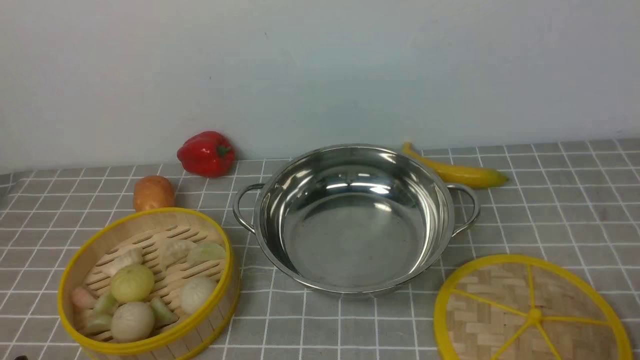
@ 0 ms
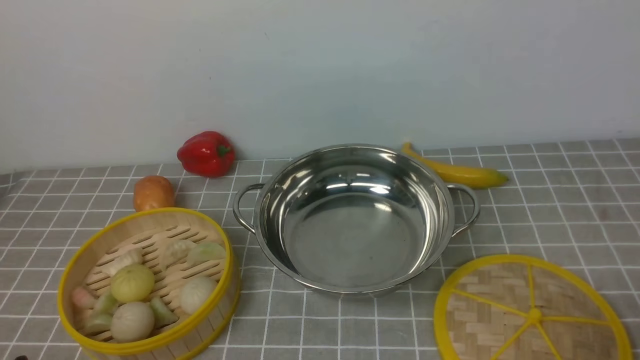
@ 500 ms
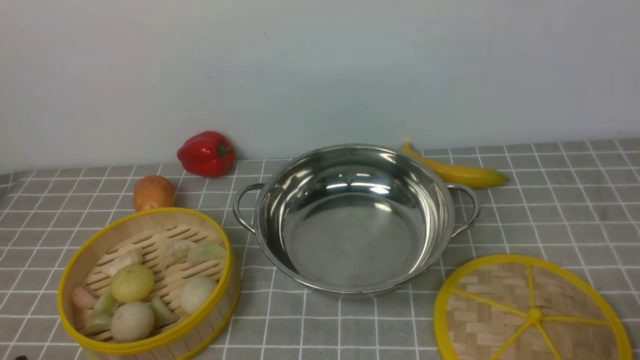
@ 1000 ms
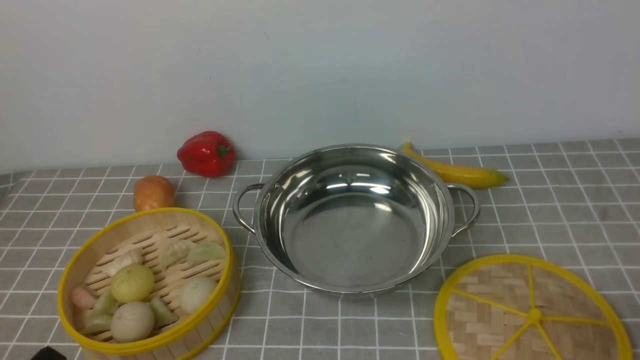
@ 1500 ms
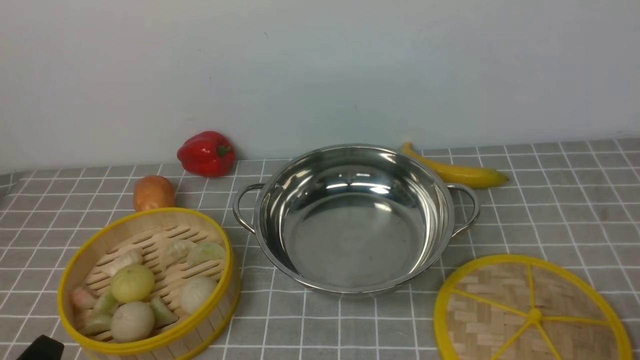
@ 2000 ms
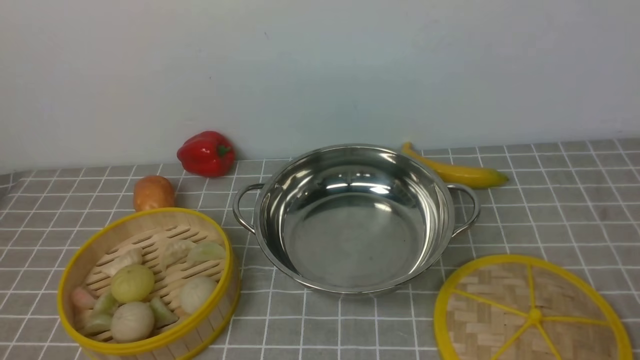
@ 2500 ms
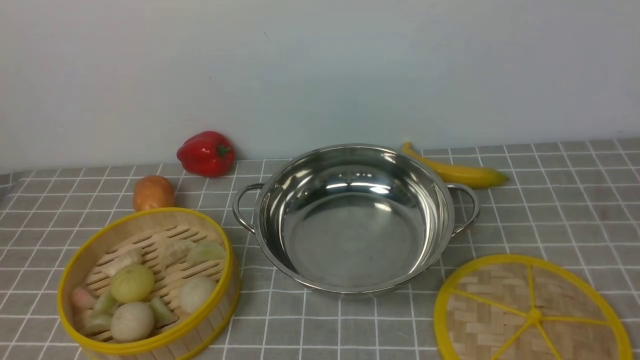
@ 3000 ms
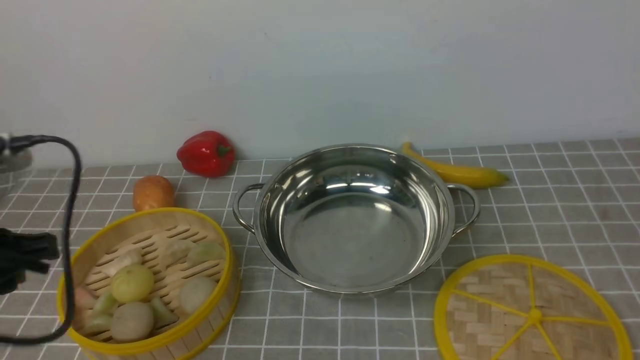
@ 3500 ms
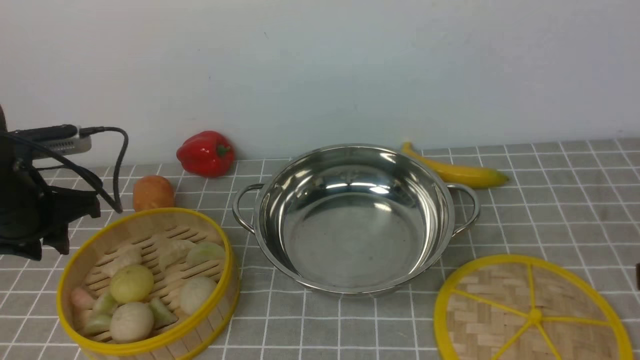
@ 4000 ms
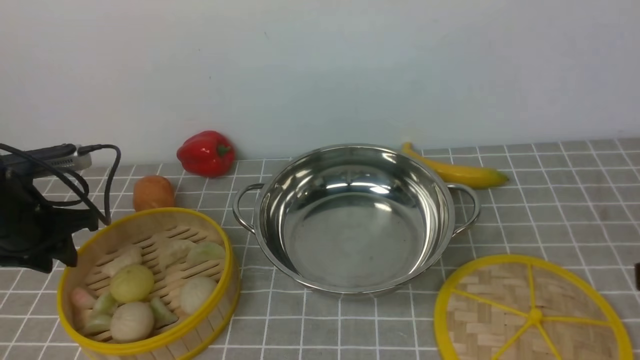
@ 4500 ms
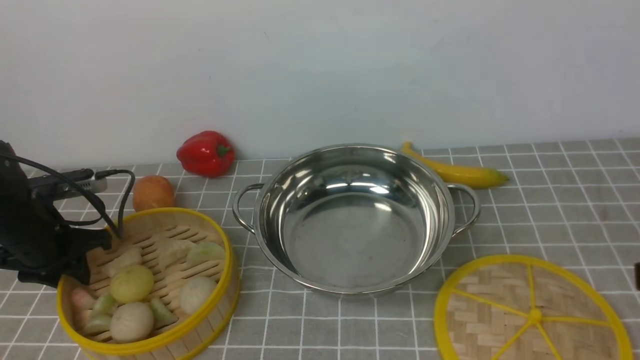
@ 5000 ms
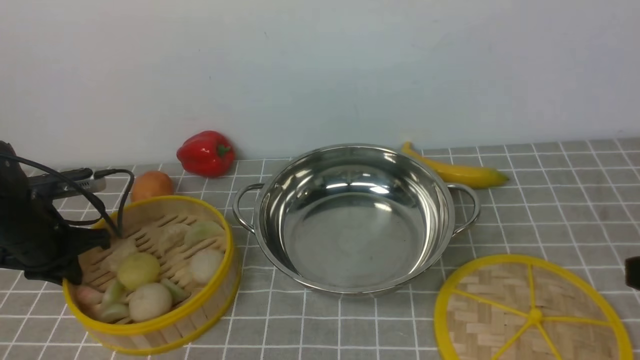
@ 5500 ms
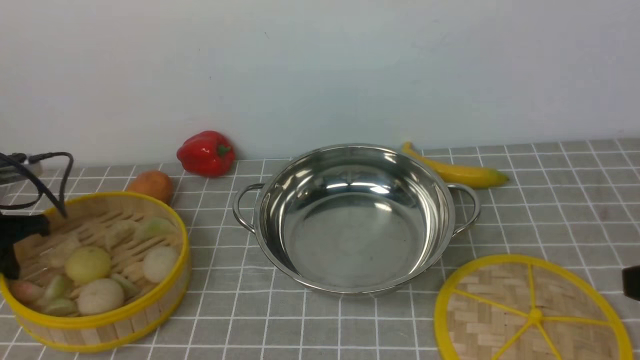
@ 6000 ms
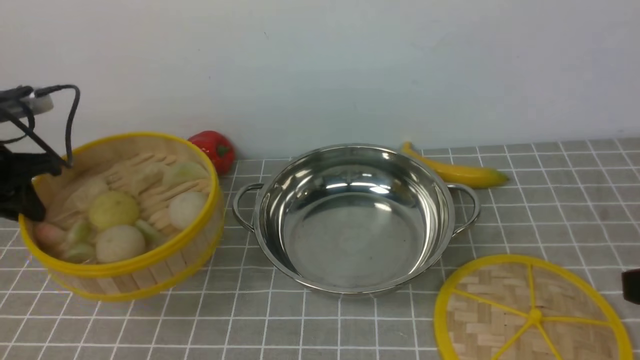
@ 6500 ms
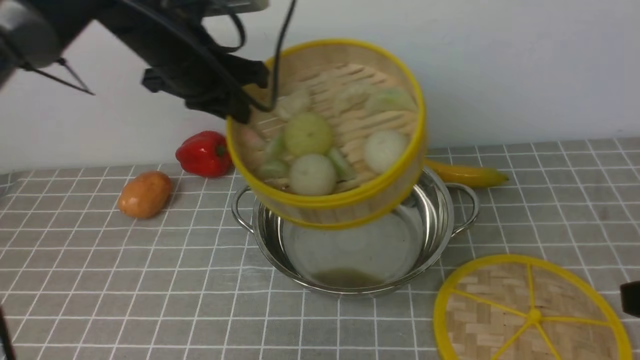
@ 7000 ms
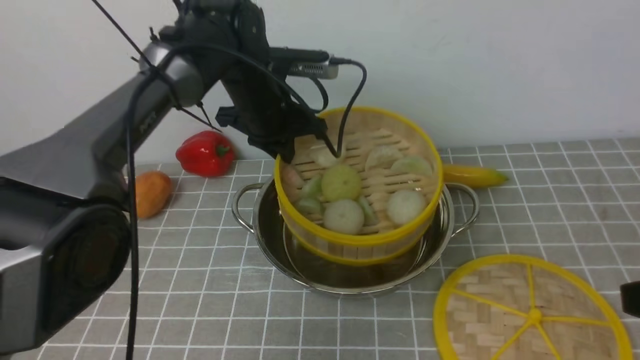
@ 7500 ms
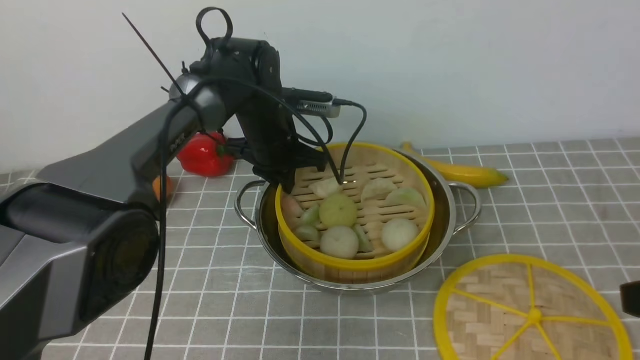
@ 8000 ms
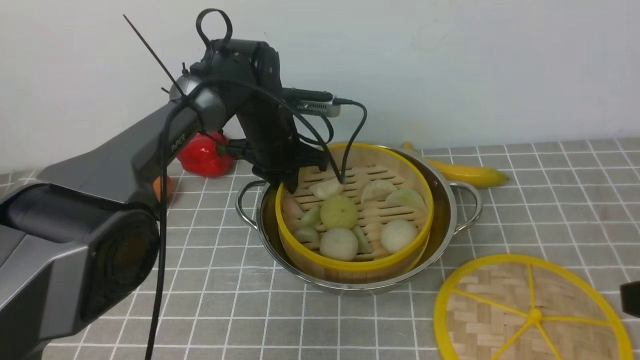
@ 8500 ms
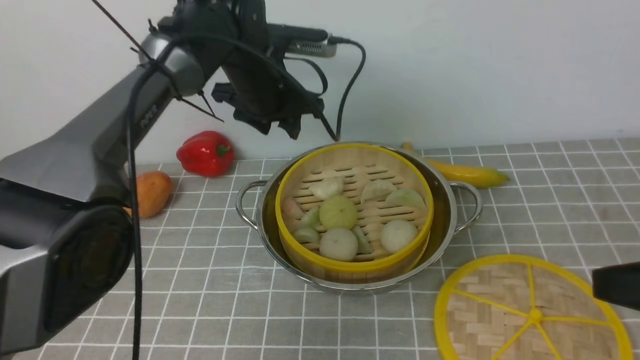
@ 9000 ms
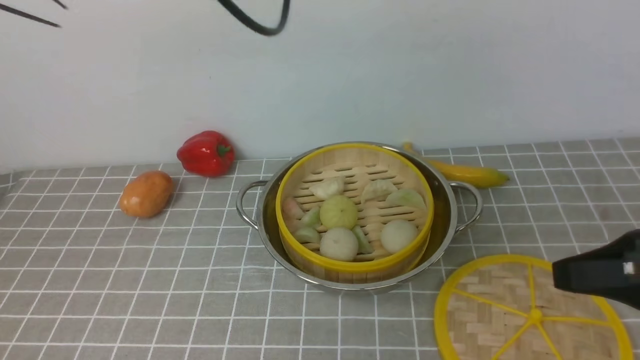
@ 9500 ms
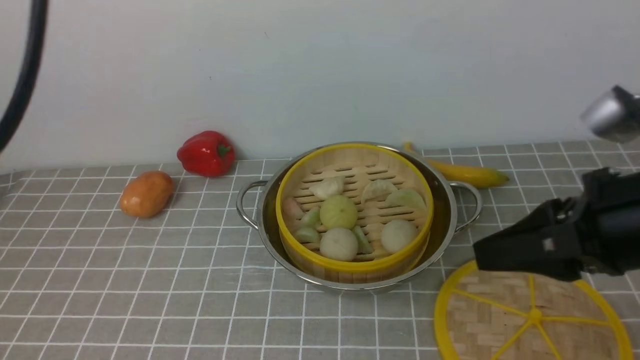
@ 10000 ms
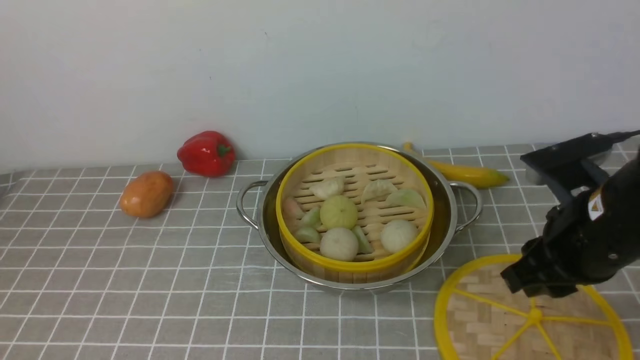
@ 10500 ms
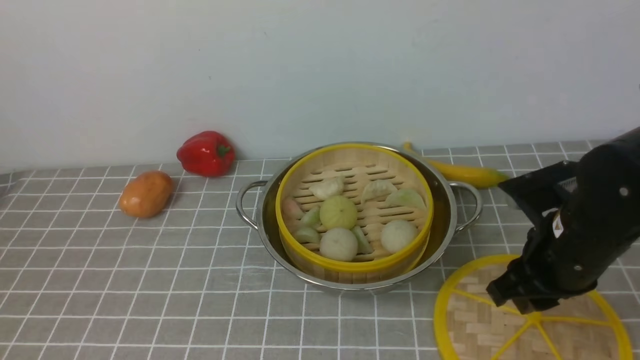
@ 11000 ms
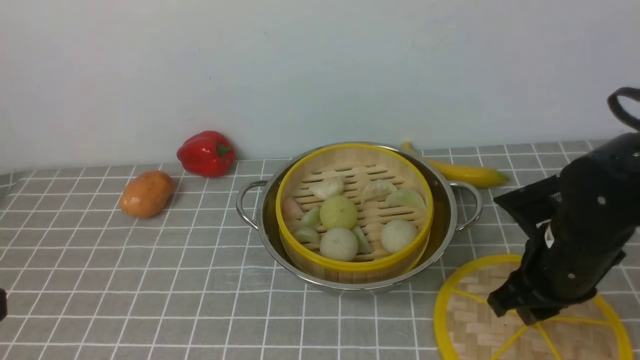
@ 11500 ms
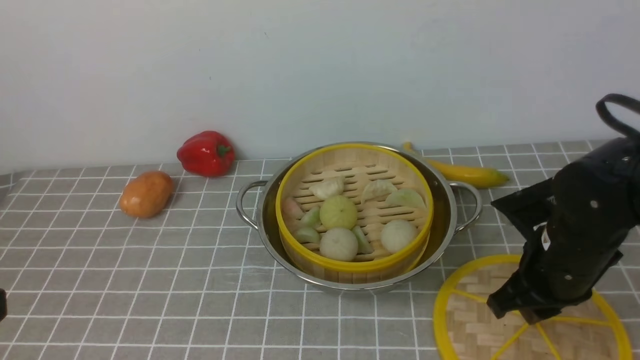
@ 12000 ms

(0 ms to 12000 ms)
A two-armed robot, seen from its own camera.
Task of the whole recording: place the steamer in the pot on the grey tablecloth, and put the lid on the steamer.
Step, 0 ms - 5500 ms: use the left arm to lift the steamer closest to it.
Step, 6000 ms - 8500 ms: use the left arm to put the steamer into the iron steamer pot in the middle.
2000 ms - 4000 ms: The left gripper travels forward by about 25 cm.
4000 ms - 6000 ms: The left gripper is displaced to the left and downward by approximately 10 cm, and closes its fingers.
6000 ms - 8000 ms: The left gripper moves to the right and forward, roughly 35 cm.
8000 ms - 10000 ms: The right gripper goes about 5 cm forward, while the left gripper shifts approximately 40 cm upward and backward, and opens, then closes once more.
10000 ms - 12000 ms: The left gripper goes some 25 cm backward and downward. Meanwhile the right gripper shifts about 15 cm downward and forward.

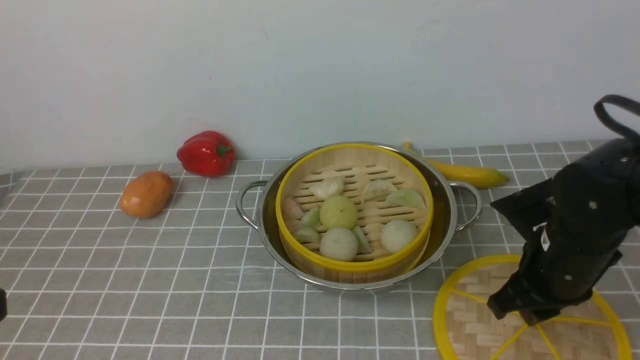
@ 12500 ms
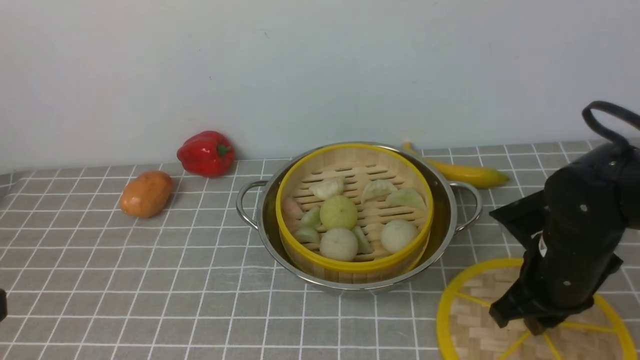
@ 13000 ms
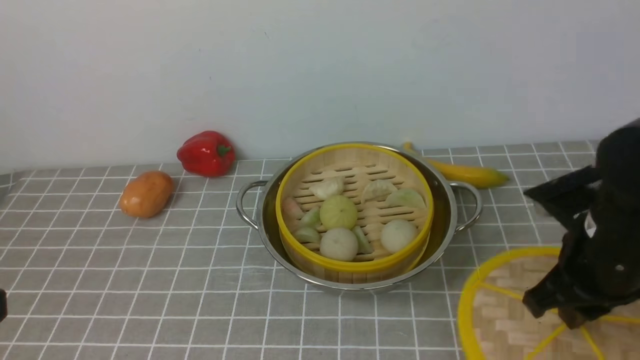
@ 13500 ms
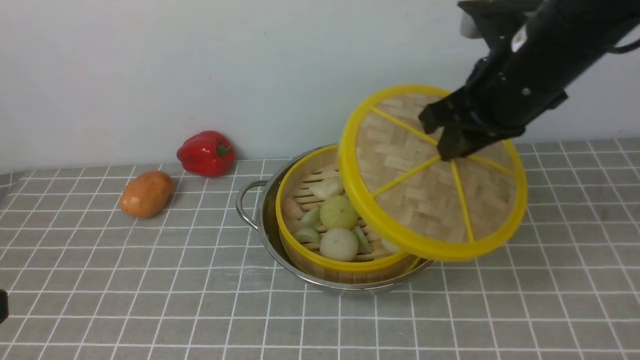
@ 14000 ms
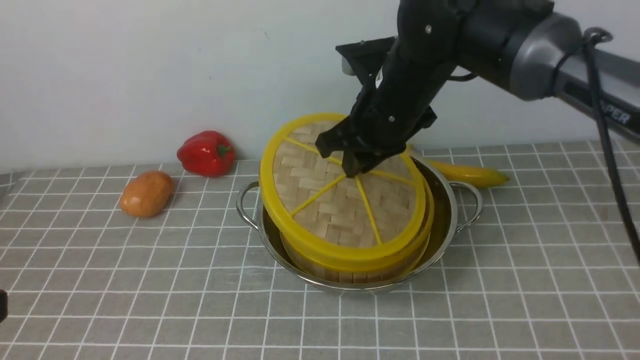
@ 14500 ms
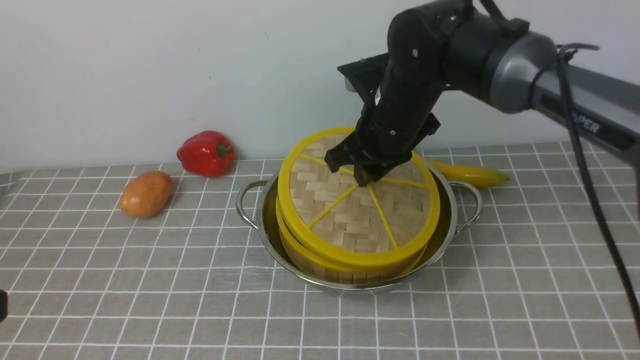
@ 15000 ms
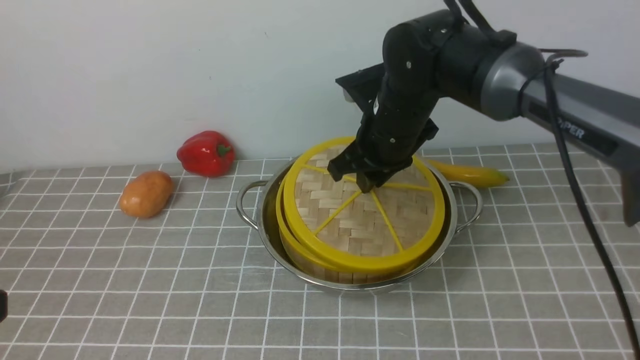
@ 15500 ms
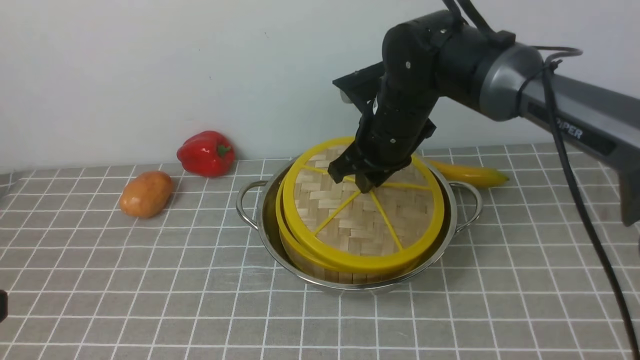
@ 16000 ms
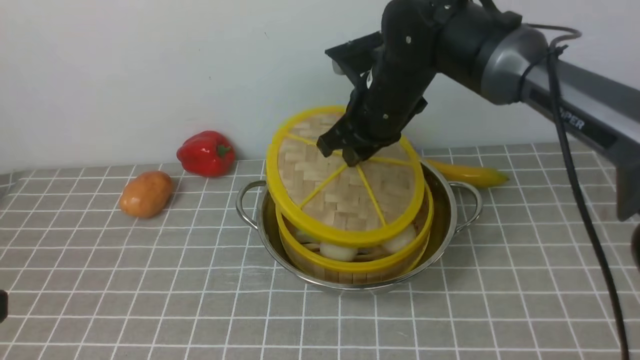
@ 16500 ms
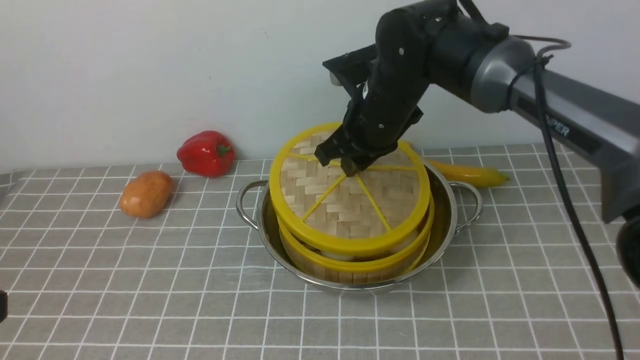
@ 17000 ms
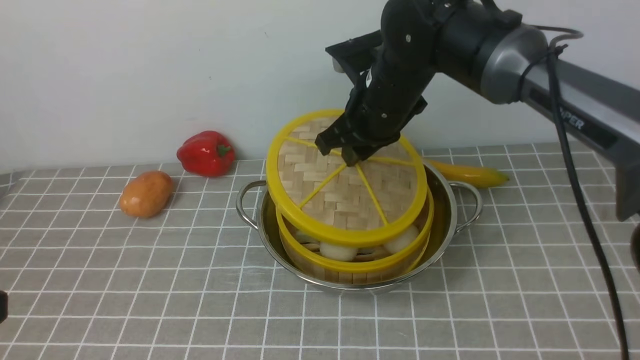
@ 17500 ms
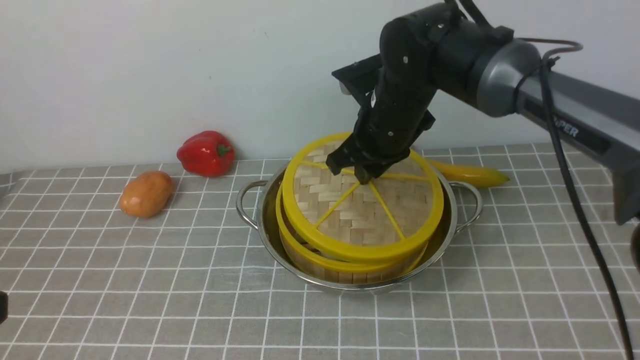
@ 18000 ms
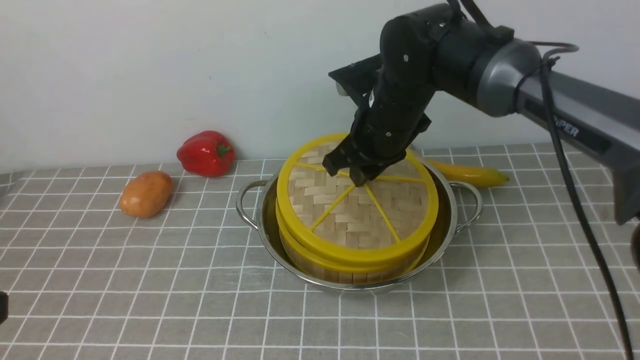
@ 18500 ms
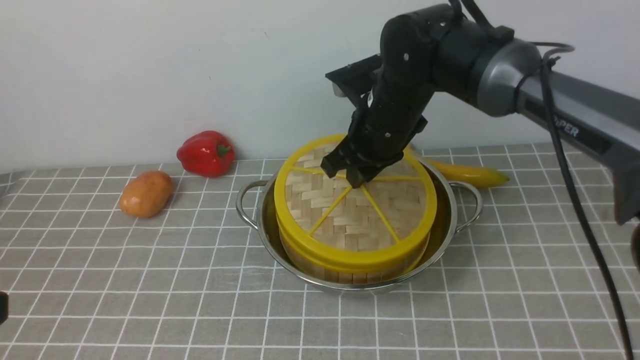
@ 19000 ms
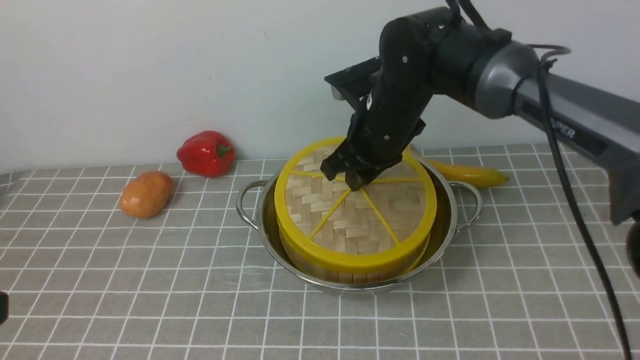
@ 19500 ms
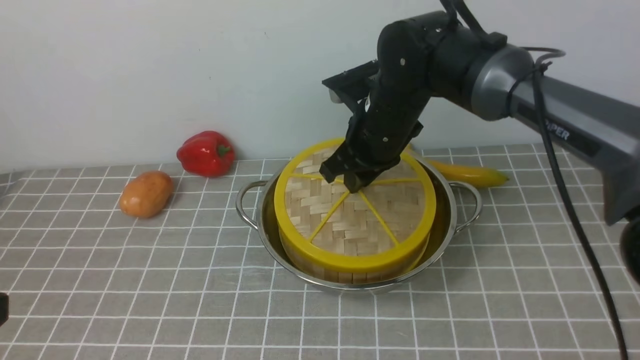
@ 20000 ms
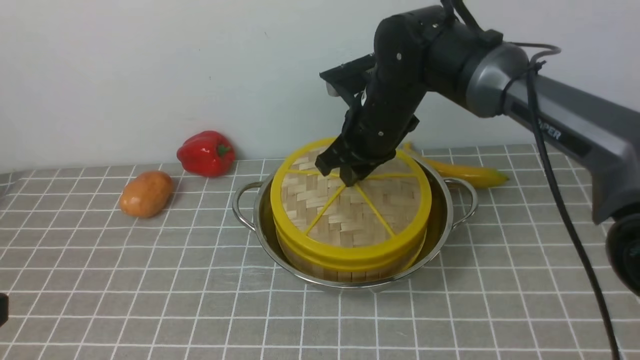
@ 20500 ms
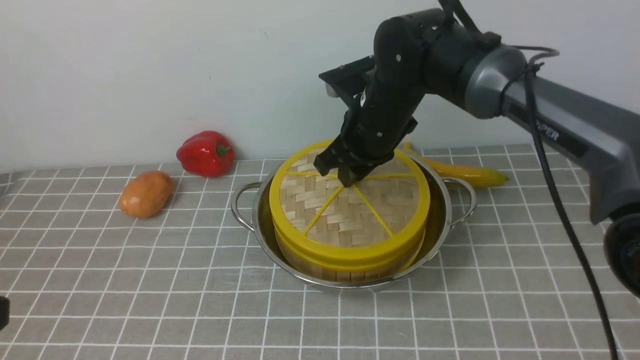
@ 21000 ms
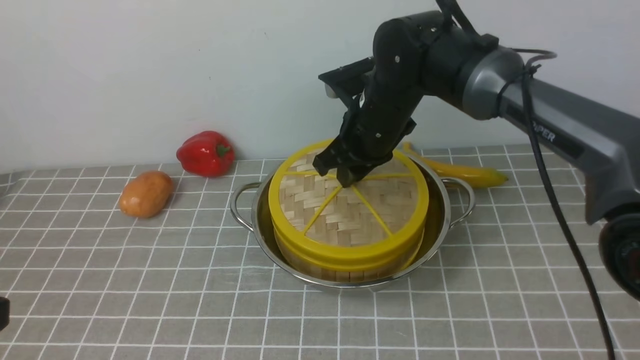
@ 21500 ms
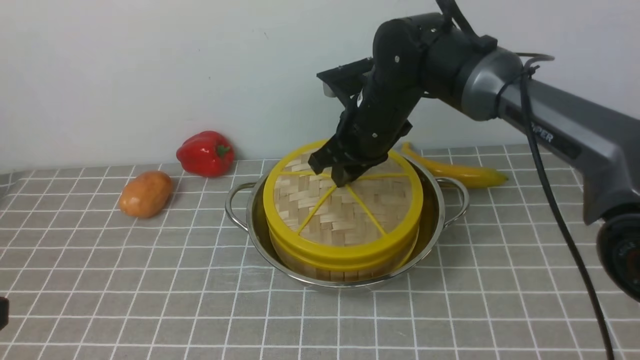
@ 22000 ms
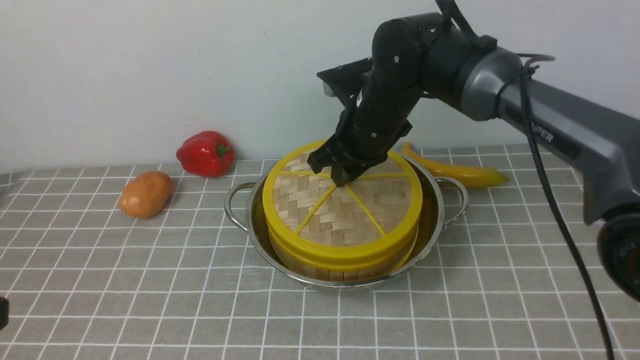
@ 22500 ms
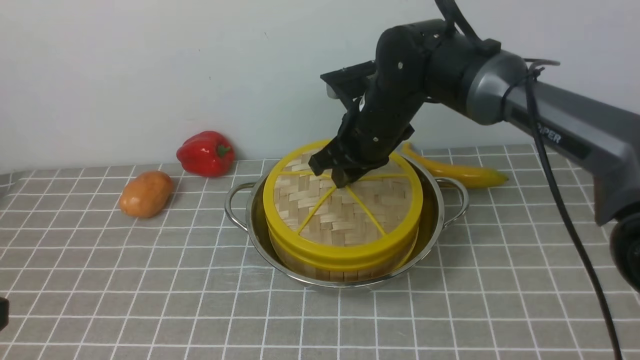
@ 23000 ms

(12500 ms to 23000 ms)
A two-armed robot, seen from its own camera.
Task of the whole recording: place the steamer in the pot on the grey tablecloth, and put the lid on the steamer.
12500 ms - 14500 ms: The right gripper goes approximately 20 cm to the left, forward and upward.
14500 ms - 16500 ms: There are only small adjustments of the grippers.
16500 ms - 19000 ms: Both grippers stay put.
19000 ms - 21000 ms: Neither gripper changes place.
21000 ms - 23000 ms: The two grippers keep their place.
